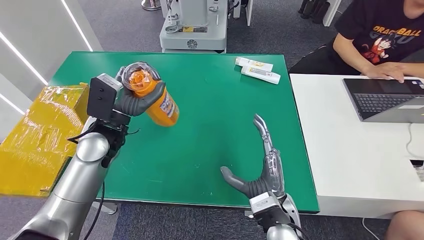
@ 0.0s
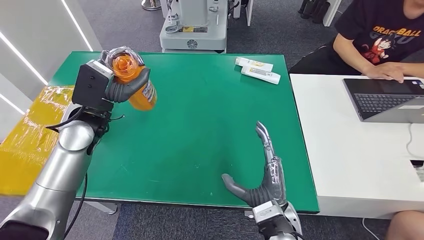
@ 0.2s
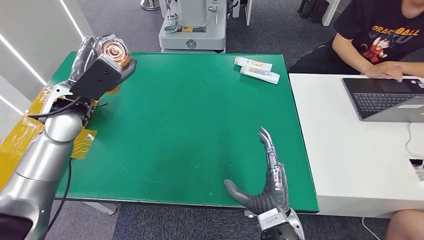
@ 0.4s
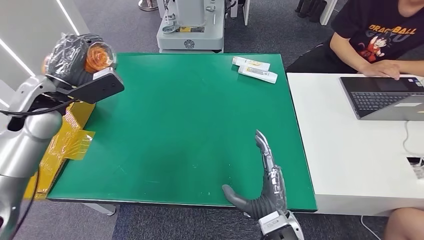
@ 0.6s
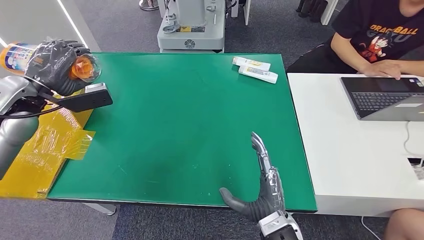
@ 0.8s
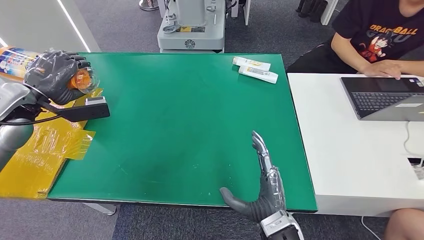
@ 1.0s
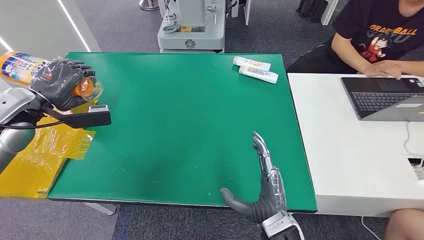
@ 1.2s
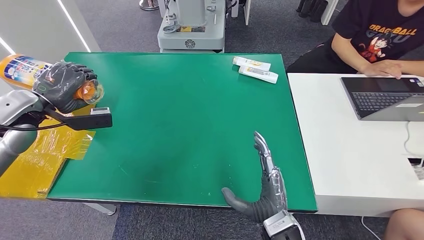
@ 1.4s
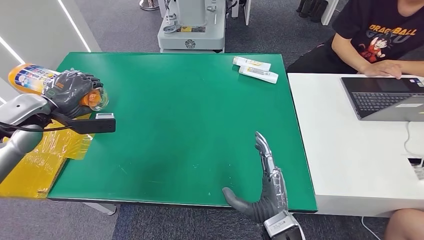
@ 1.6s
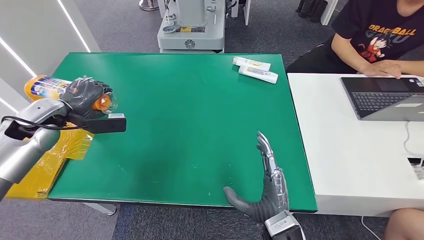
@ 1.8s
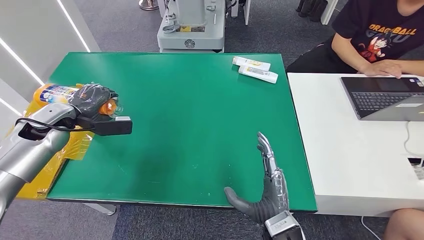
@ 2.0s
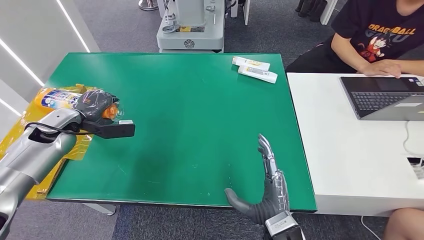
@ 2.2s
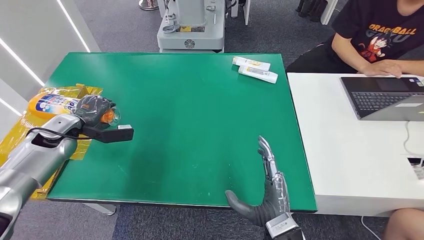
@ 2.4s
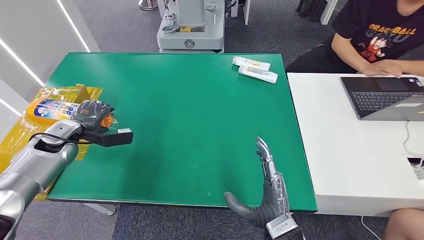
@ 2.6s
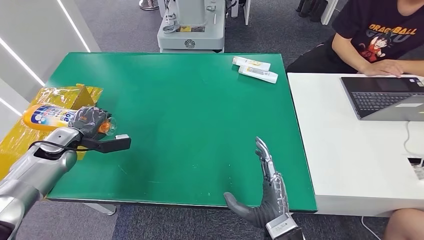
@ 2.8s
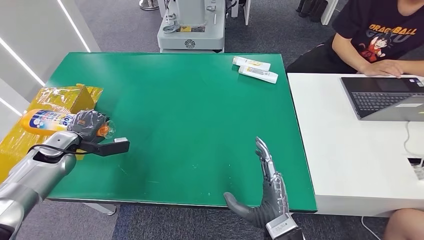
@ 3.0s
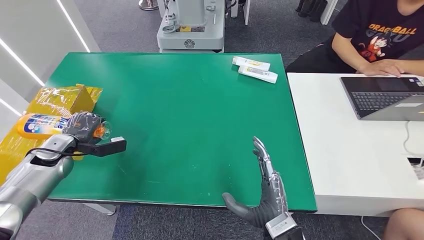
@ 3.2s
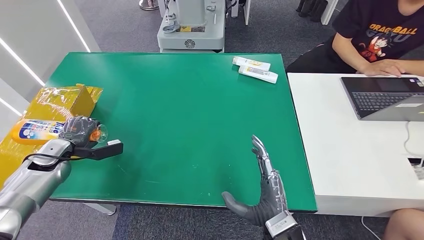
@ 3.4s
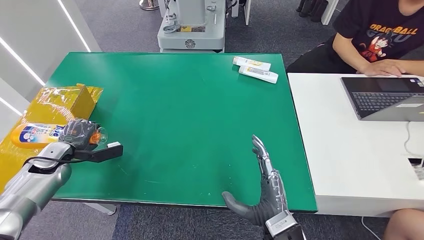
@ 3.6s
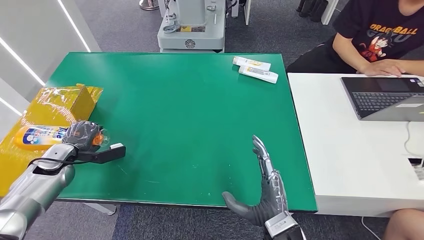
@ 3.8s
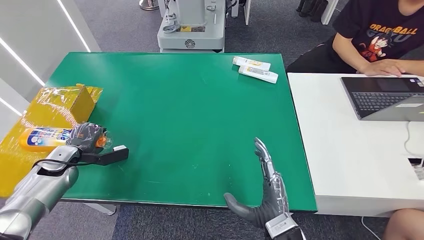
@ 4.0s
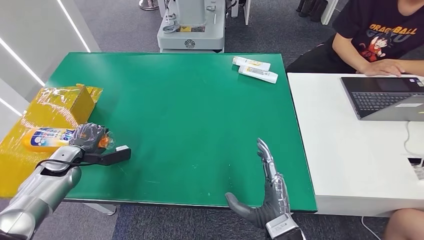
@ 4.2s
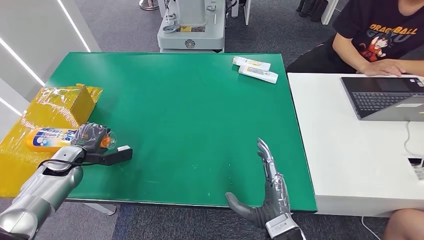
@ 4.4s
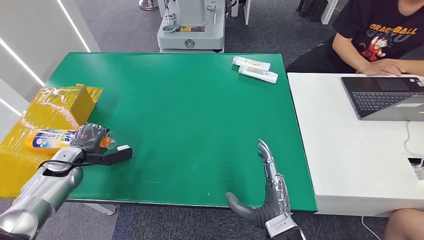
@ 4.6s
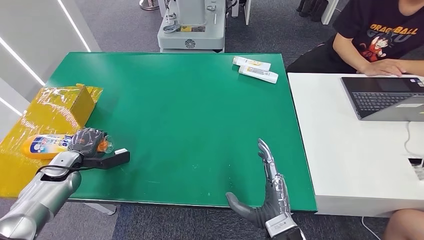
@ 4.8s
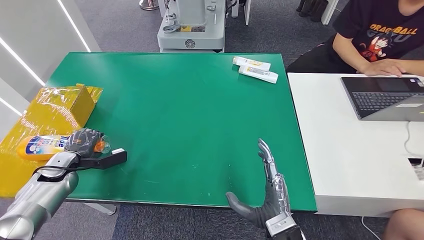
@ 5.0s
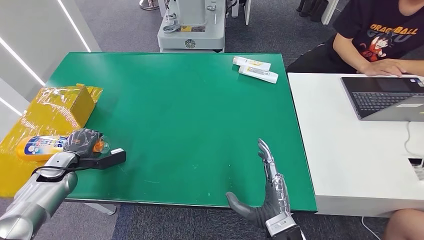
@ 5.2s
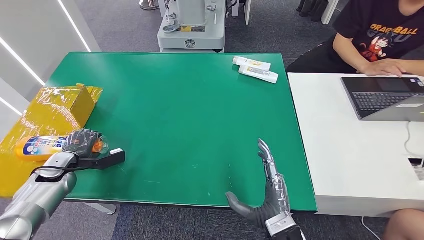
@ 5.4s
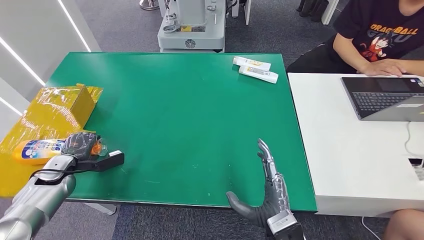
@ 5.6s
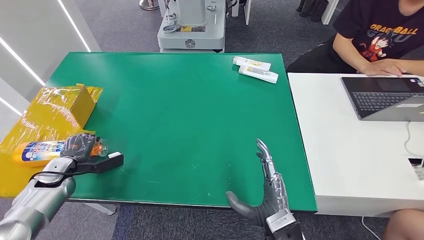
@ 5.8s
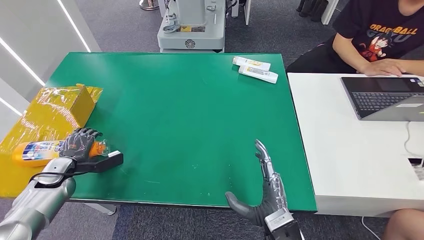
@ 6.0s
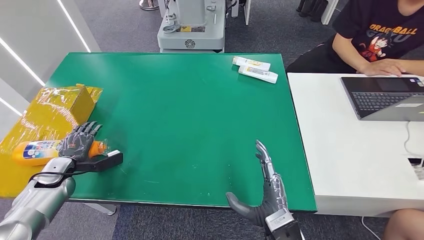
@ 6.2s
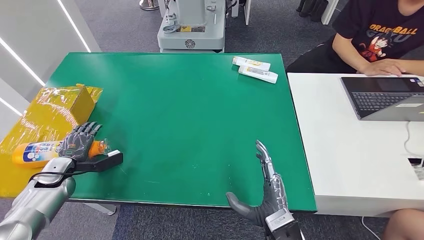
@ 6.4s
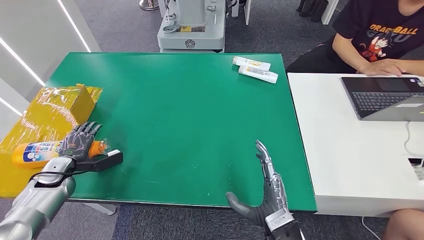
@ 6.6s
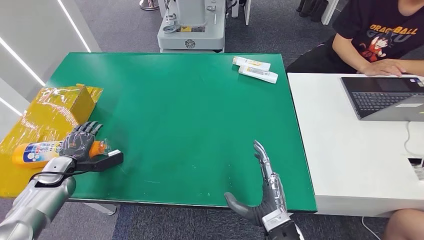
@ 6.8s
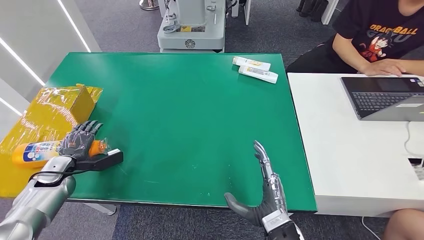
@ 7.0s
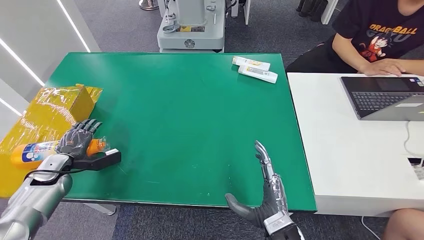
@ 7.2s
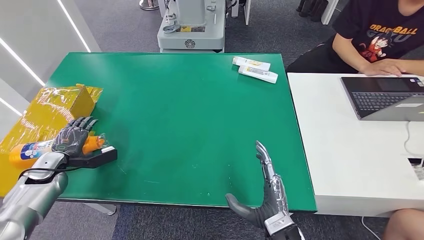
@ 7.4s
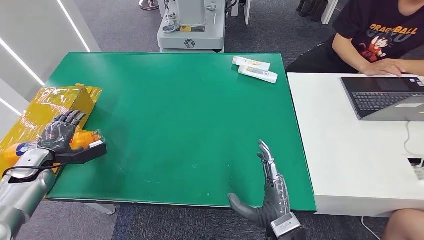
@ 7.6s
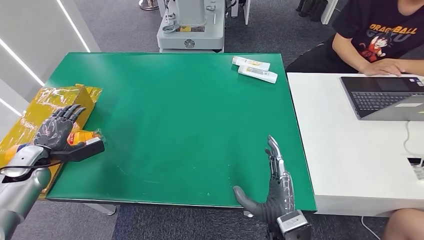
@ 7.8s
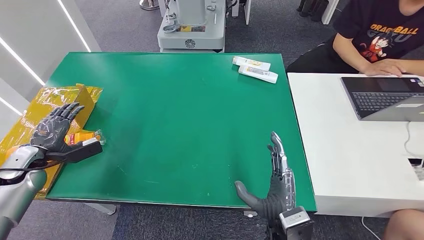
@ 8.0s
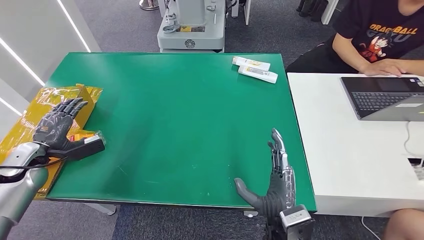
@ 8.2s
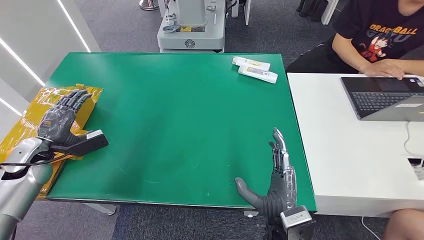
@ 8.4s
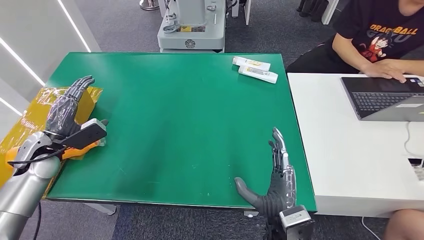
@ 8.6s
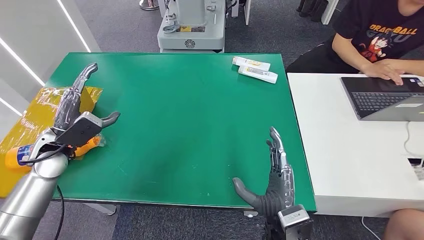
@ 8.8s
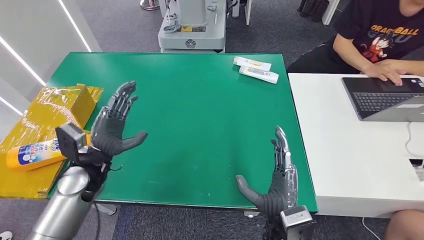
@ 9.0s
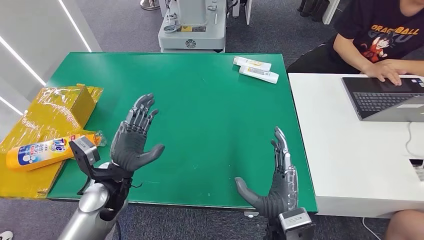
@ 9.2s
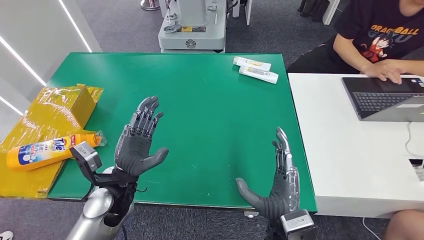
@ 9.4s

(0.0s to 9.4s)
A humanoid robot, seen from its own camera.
Step, 0.0s - 9.4s: Turn the bottle to the front side.
1.6s - 3.2s: The left hand is displaced downward by approximately 15 cm.
3.2s - 4.8s: The left hand shifts roughly 5 cm downward.
4.8s - 6.2s: The hands stay close to where they were, moving slightly.
6.2s - 7.8s: The left hand moves upward, about 5 cm.
7.8s - 9.4s: The left hand is displaced to the right by some 30 cm.

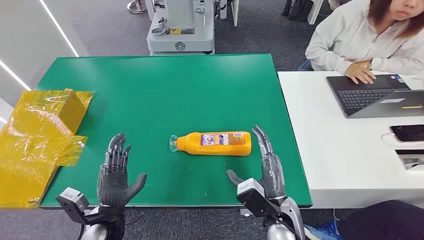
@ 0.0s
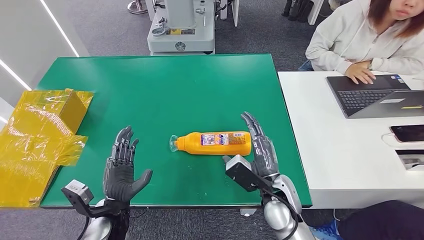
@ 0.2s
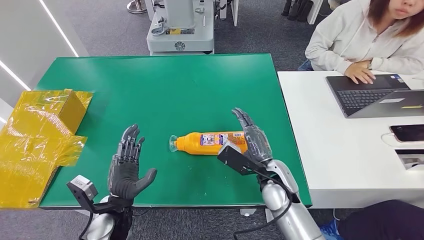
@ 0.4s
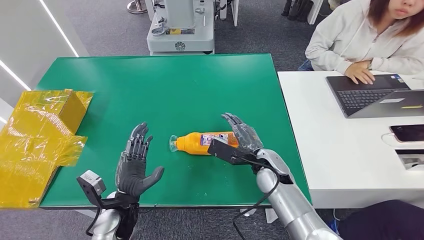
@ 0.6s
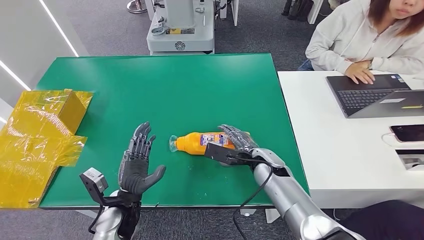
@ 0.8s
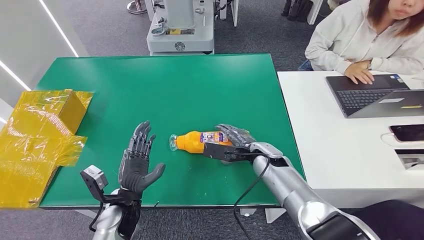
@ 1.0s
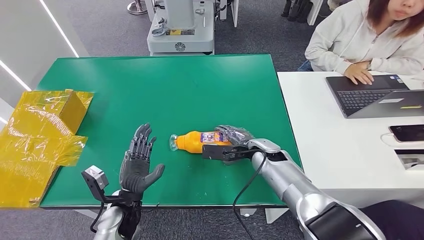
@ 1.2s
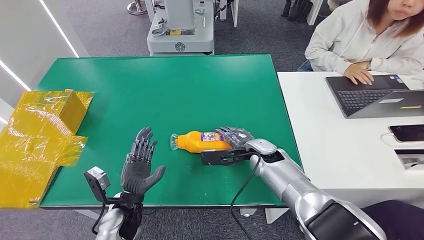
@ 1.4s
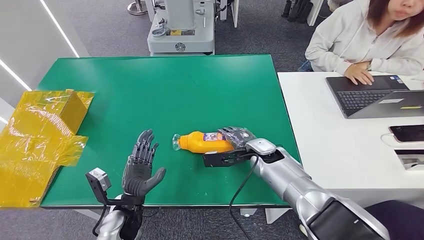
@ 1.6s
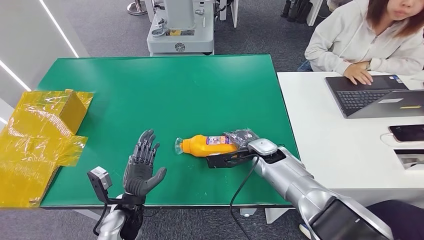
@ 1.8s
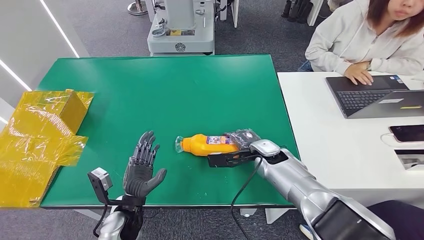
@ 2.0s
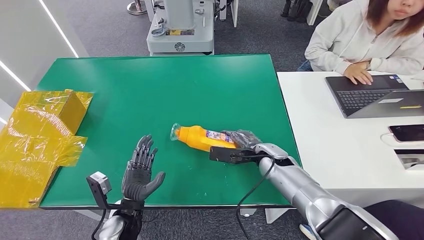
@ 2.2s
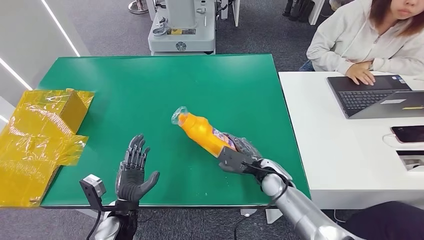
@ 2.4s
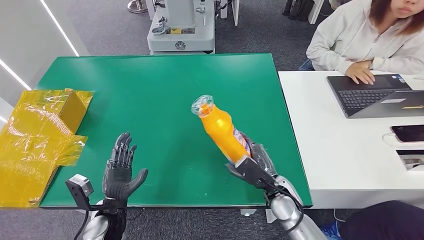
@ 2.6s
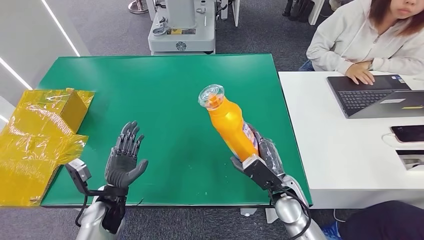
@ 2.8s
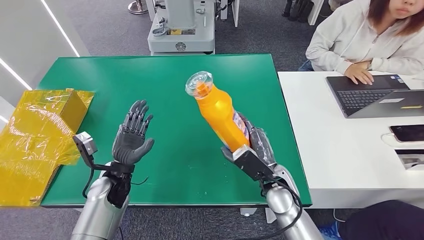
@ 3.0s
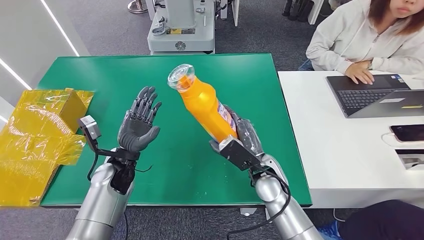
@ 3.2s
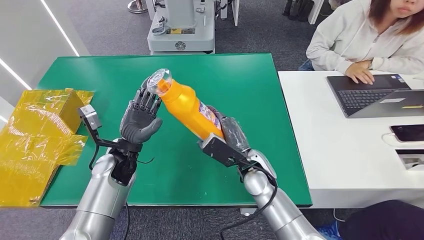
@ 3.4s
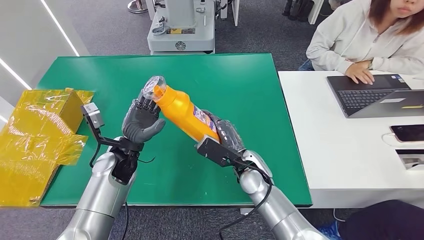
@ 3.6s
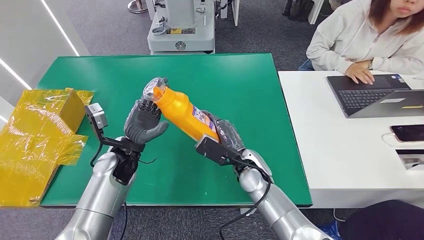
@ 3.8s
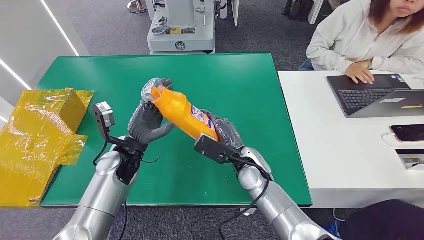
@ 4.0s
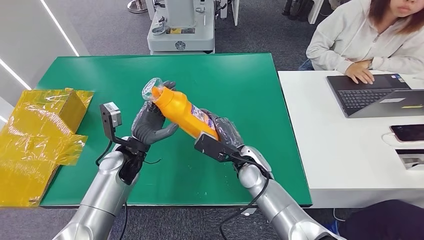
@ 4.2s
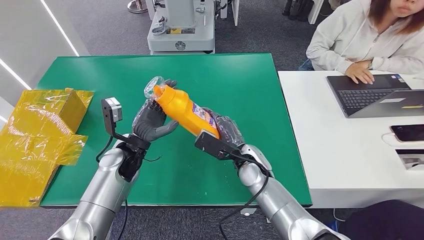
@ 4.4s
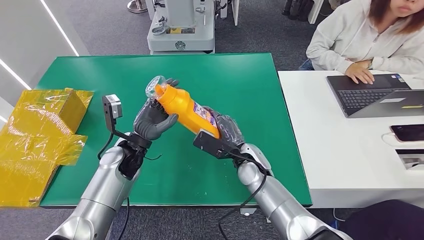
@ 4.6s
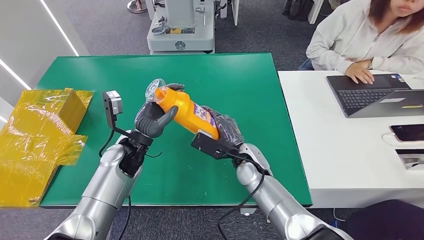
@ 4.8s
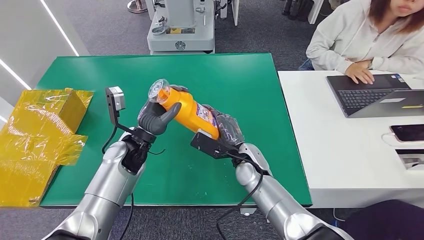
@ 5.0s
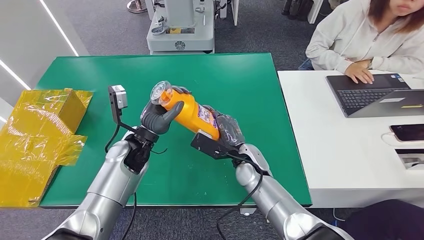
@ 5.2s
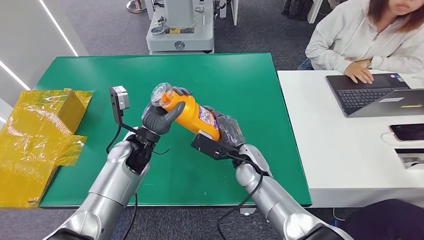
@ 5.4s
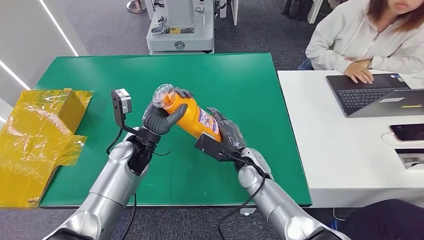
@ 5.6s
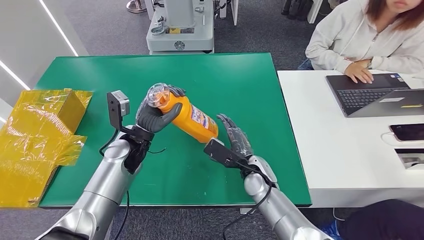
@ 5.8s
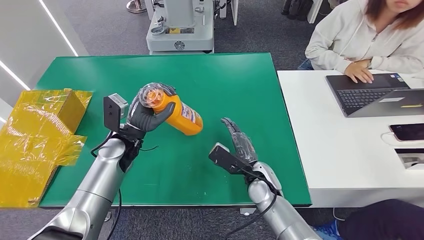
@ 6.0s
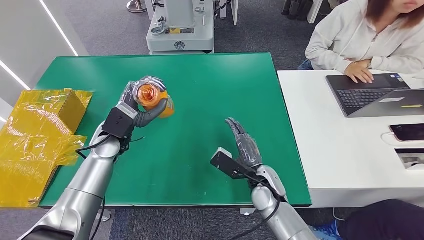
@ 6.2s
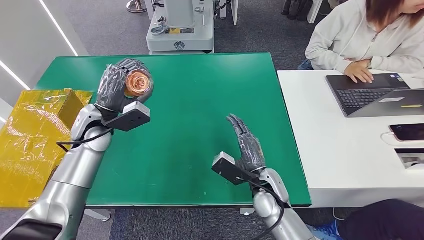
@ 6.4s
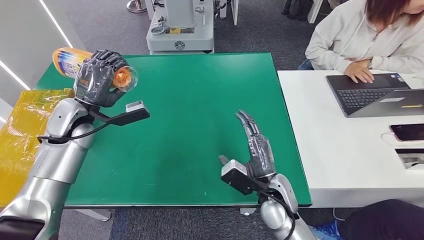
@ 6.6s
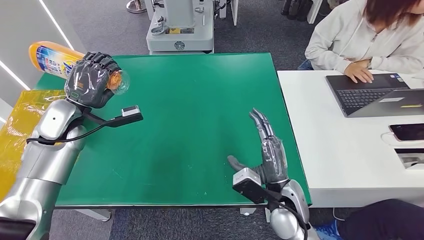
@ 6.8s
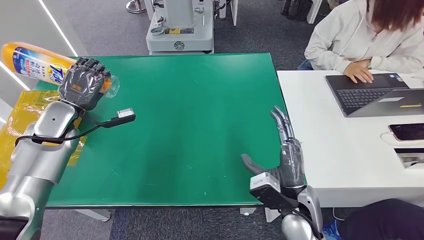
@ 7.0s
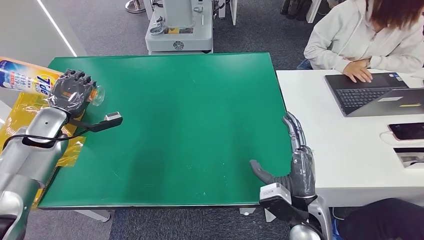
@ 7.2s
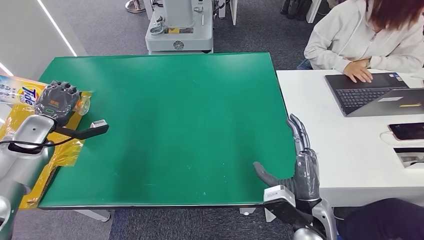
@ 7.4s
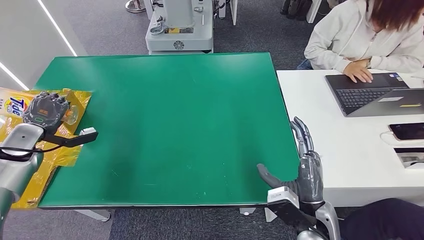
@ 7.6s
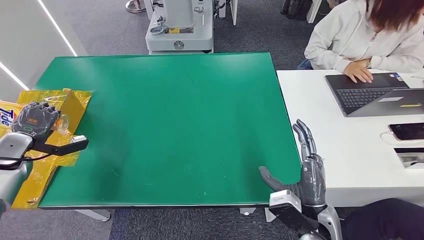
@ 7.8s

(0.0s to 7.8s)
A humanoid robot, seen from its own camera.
Step, 0.0s - 3.4s: Pick up the bottle from the table.
1.6s - 3.2s: The right hand shifts some 10 cm backward. Meanwhile the left hand goes some 10 cm forward and upward.
3.2s - 4.6s: The right hand ends up some 5 cm from where it was.
4.6s - 6.2s: The left hand ends up some 5 cm from where it was, while the right hand moves roughly 5 cm.
